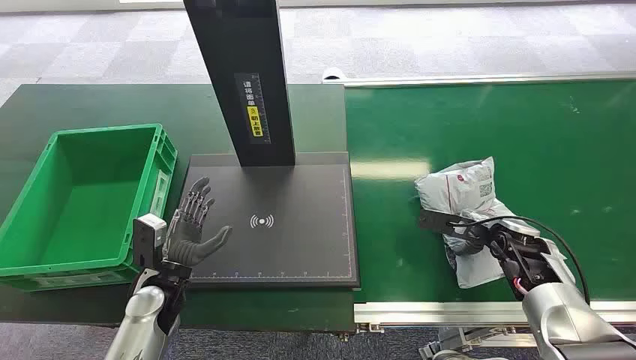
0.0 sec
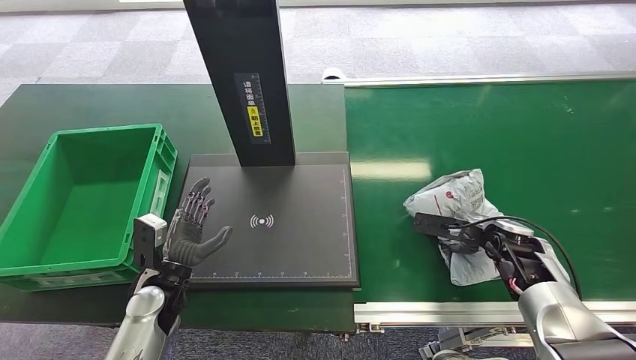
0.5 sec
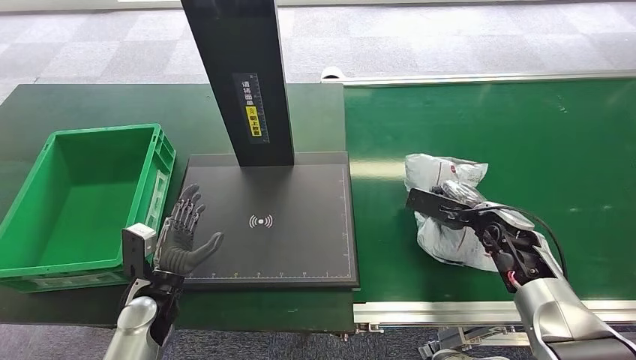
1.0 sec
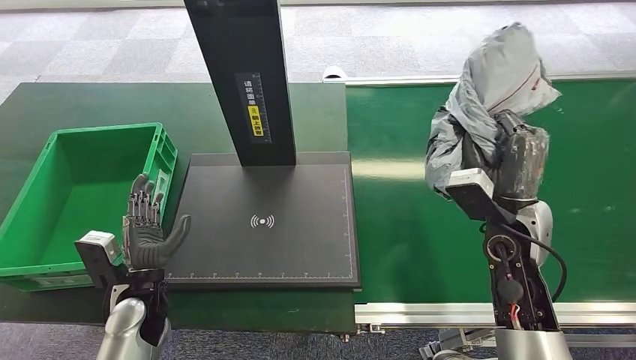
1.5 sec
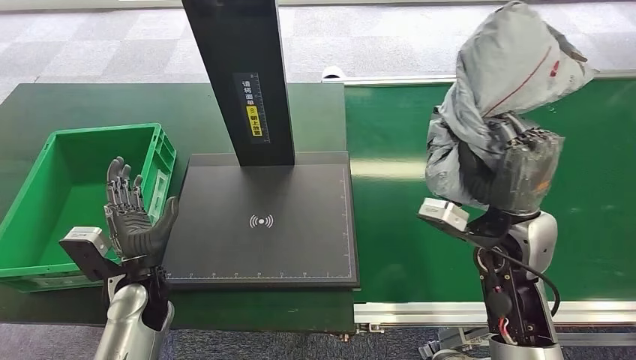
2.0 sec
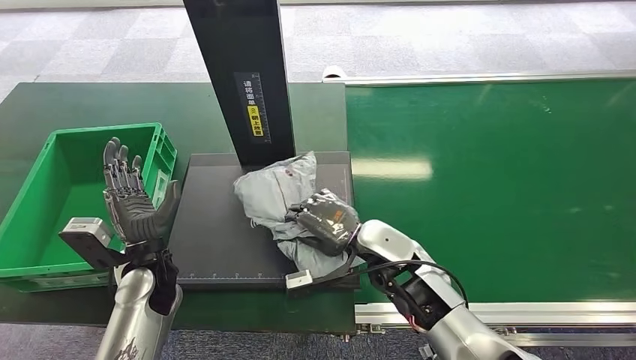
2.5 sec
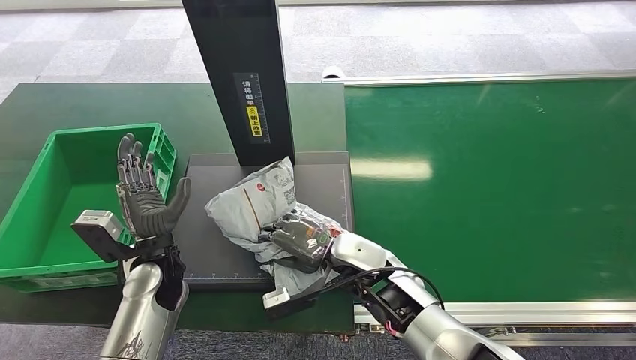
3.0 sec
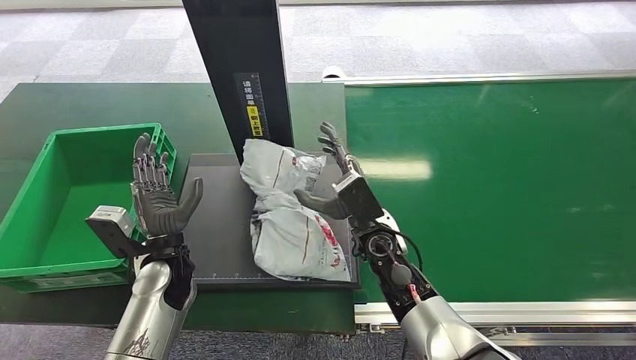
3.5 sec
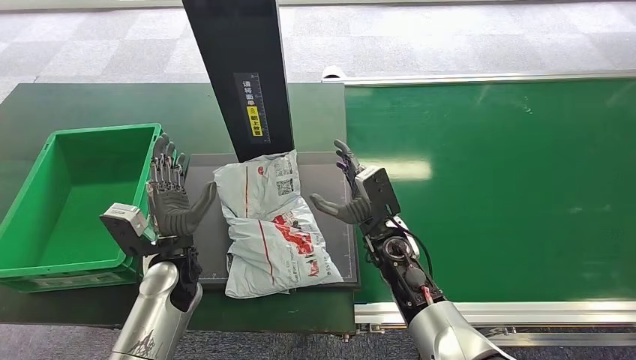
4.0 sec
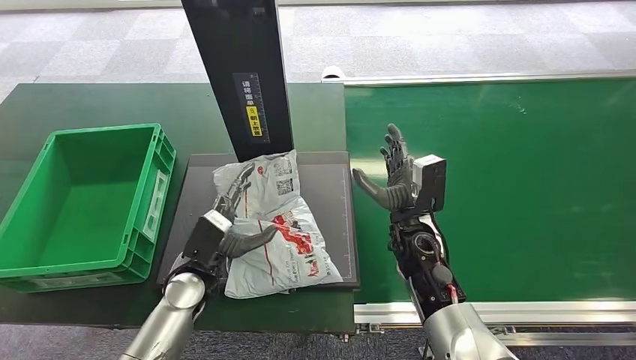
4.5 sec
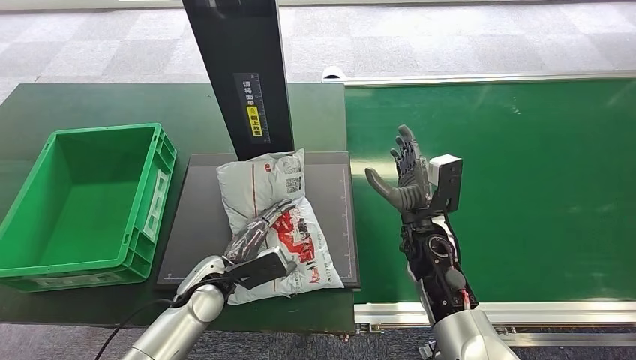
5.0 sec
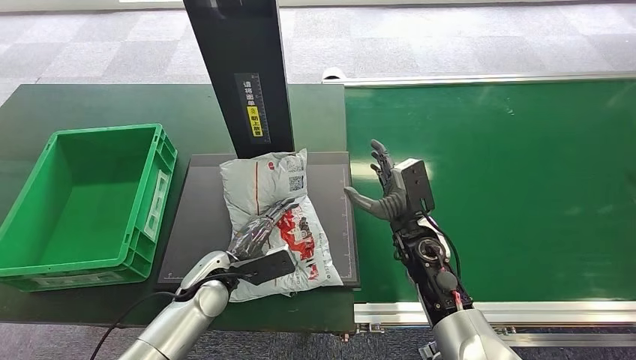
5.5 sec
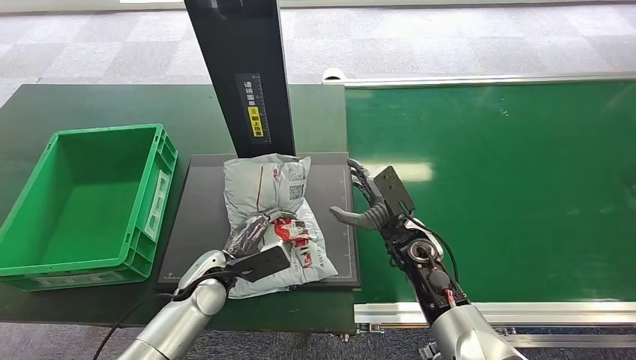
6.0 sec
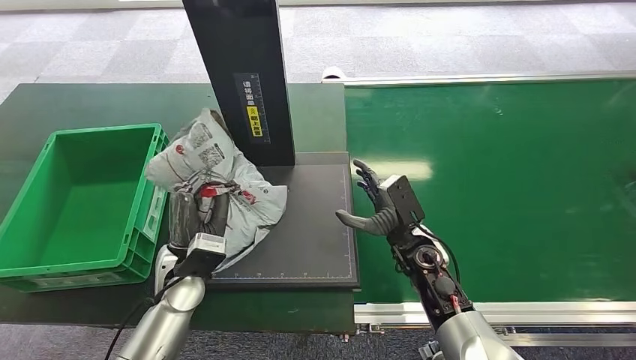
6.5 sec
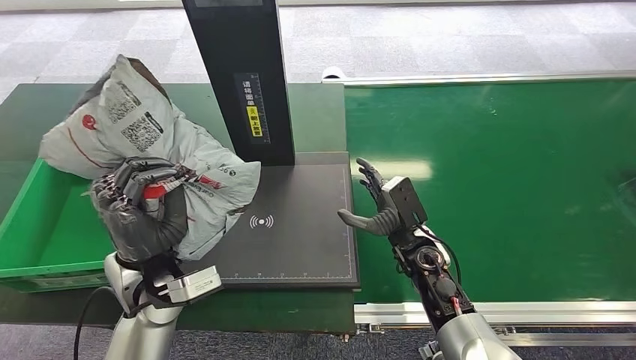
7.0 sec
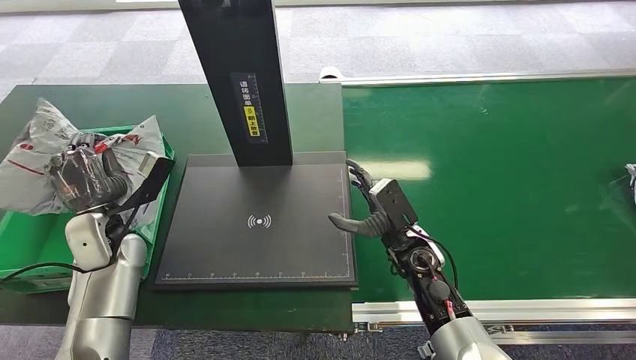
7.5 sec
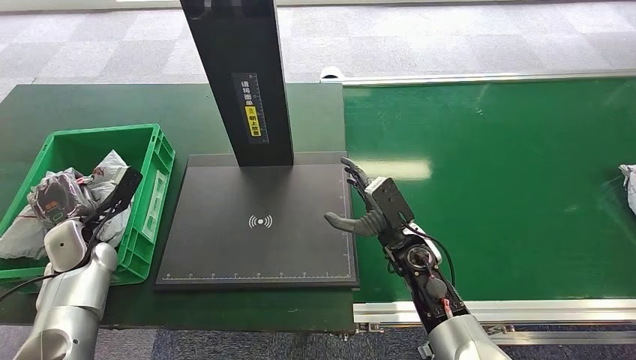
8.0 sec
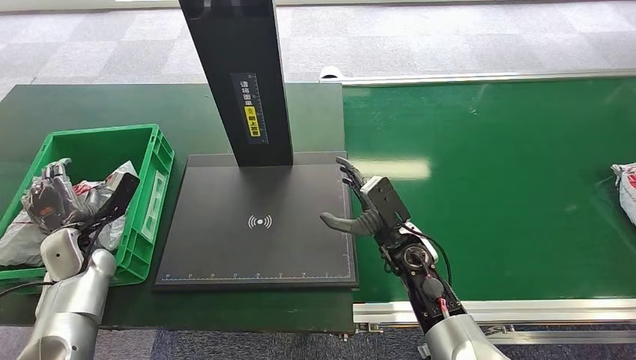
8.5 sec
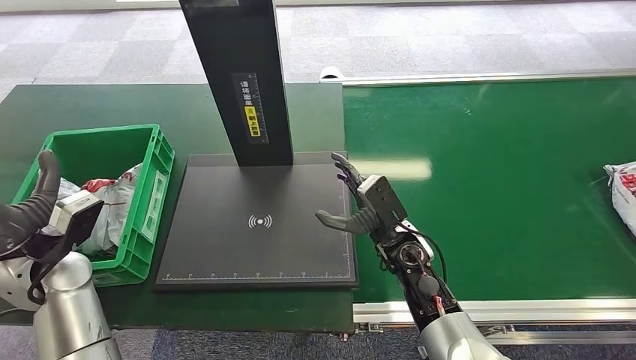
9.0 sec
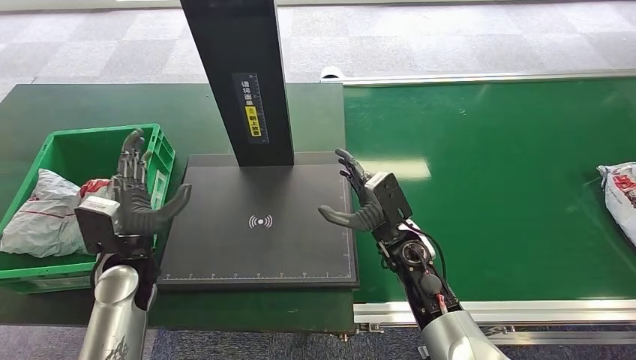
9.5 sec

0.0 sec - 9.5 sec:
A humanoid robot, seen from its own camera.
Step, 0.0 sec - 1.5 sec: Pick up the package from the conveyor belt.
Step, 2.0 sec - 4.0 sec: Place the package onto the inbound machine.
Step, 4.5 sec - 6.5 sec: Pick up the package from the inbound machine.
Step, 7.0 sec - 9.5 sec: Place the package into the parcel locker.
4.0 sec - 5.5 sec: The left hand moves downward, approximately 5 cm.
7.5 sec - 9.5 sec: The left hand travels to the left and back again, about 10 cm each way.
